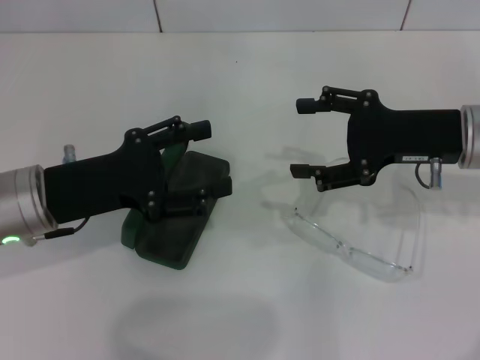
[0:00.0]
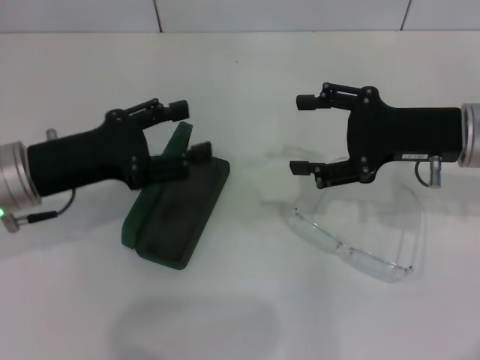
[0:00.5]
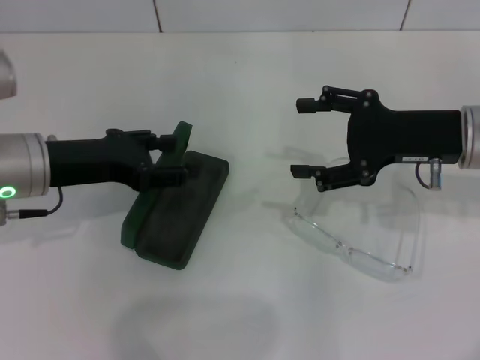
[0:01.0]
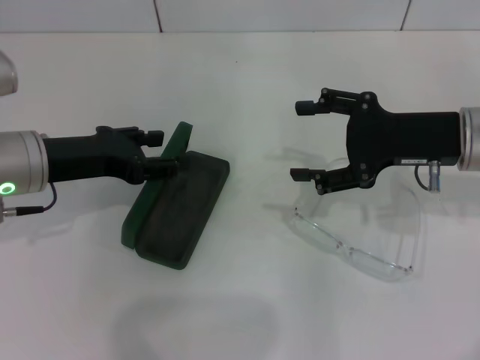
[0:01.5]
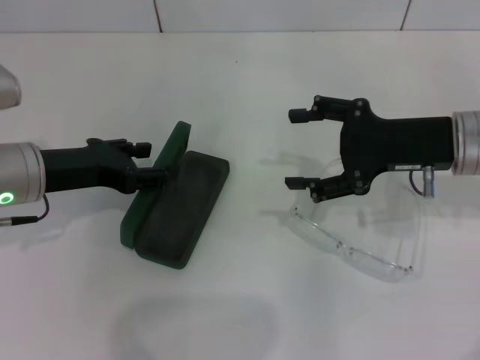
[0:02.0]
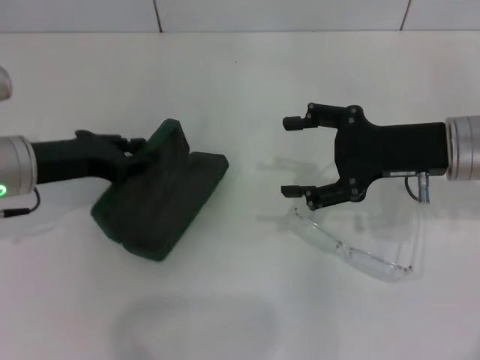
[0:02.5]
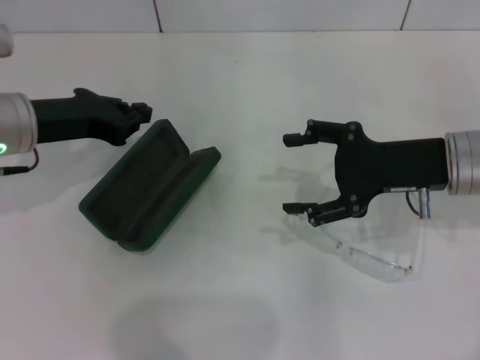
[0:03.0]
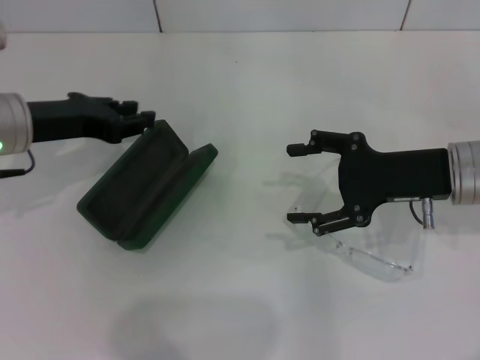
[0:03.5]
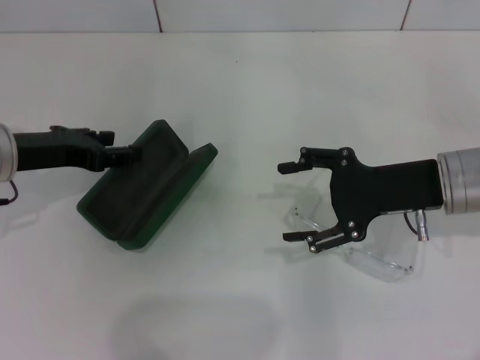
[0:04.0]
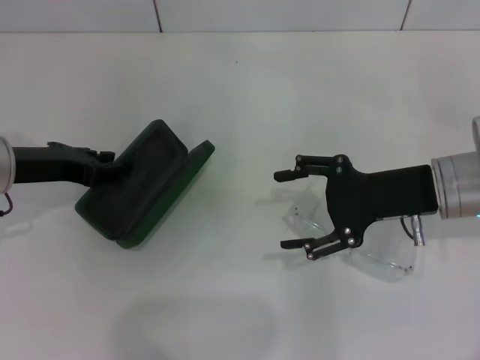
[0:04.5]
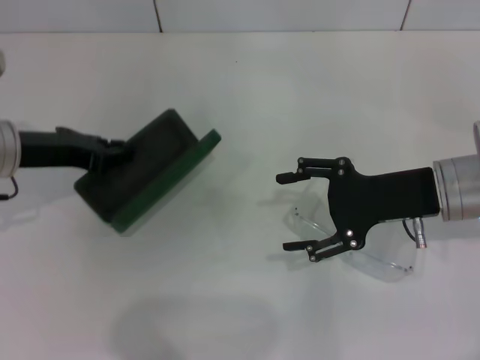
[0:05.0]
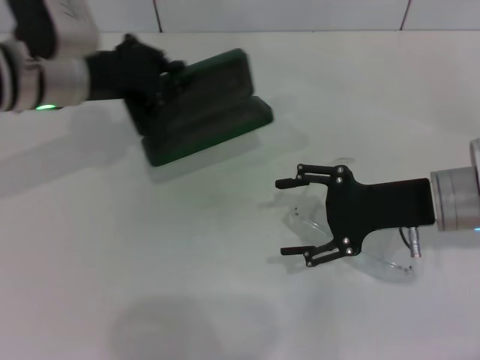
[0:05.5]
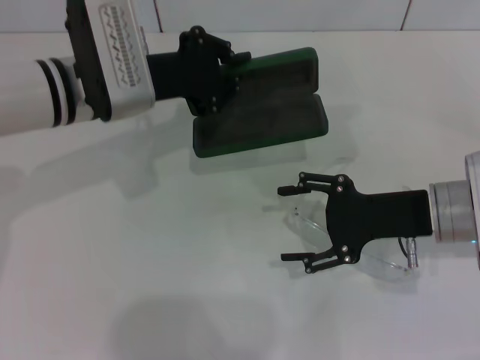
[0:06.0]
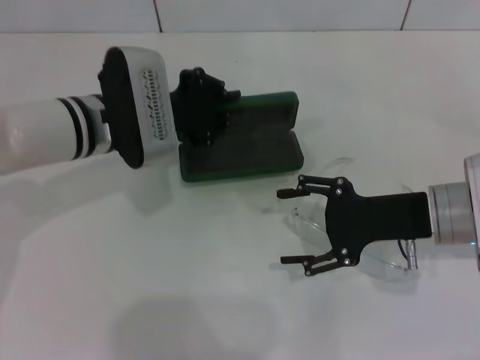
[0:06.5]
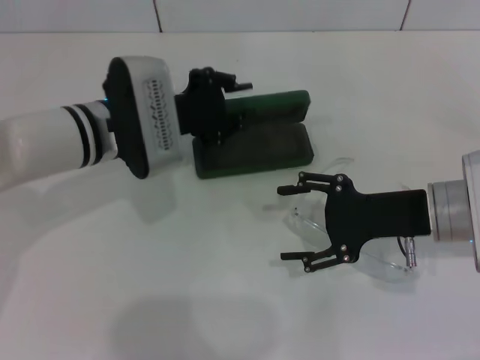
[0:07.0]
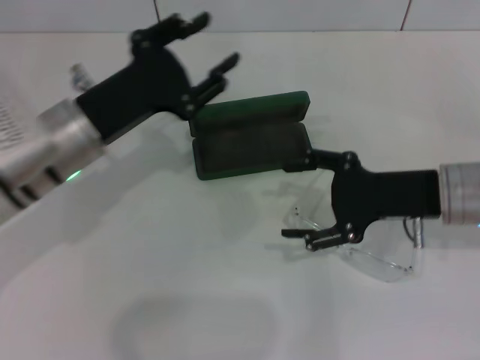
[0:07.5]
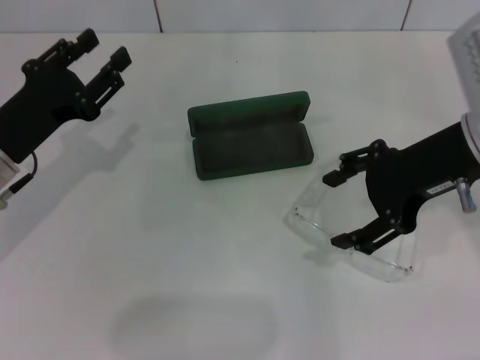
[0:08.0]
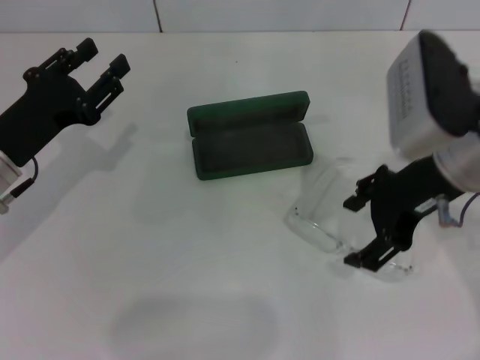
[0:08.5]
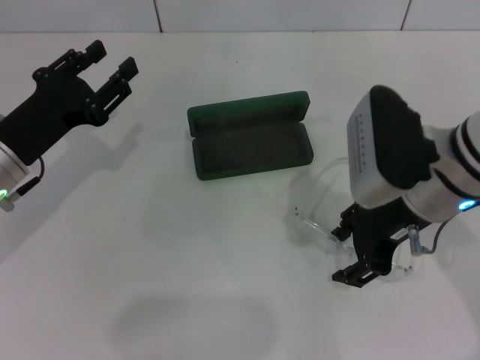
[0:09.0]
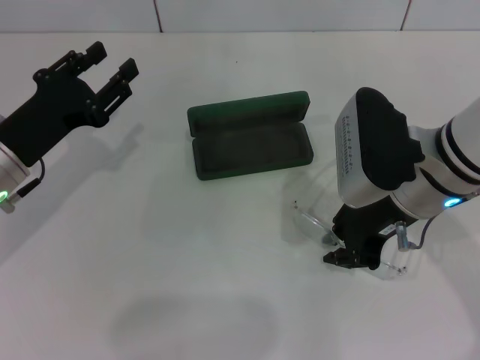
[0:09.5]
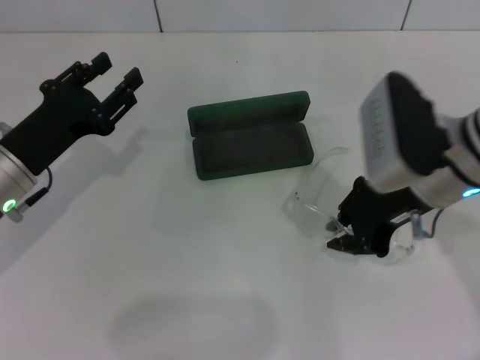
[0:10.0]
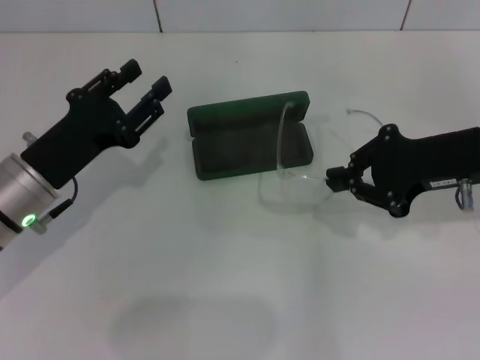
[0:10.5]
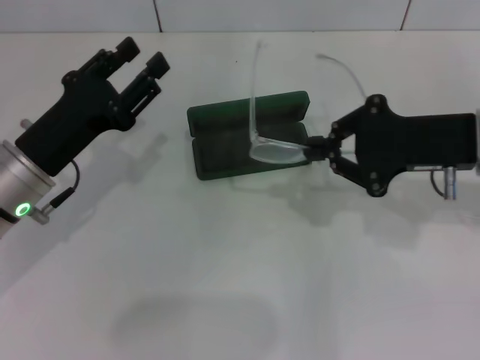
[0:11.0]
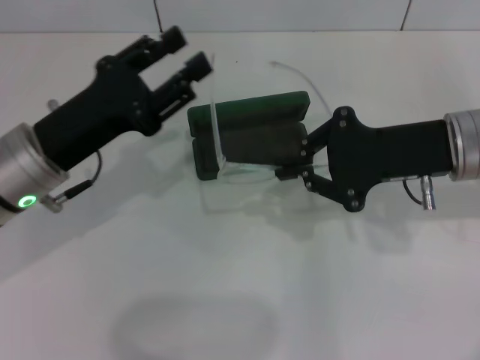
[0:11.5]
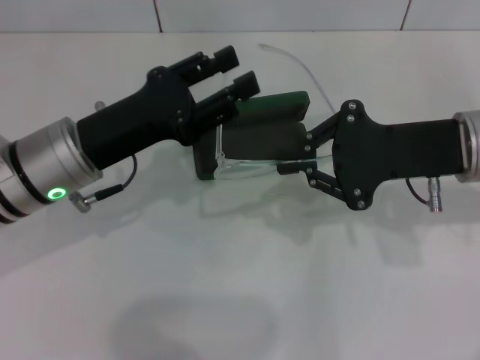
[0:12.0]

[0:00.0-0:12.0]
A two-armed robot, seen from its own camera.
Step, 0.0 to 4.5 s: Grab the glasses case with your left hand.
Step, 5.0 to 6.5 s: Place the glasses case in the center of the table with your left hand.
Step, 7.5 to 9.5 s: Grab the eyeglass frame with your right hand.
2.0 to 4.0 s: The left gripper closes, then opens again.
4.0 to 6.0 s: The left gripper is displaced to the right by some 10 cm, and closes its fingers.
6.0 to 8.0 s: The right gripper is displaced upward by roughly 10 cm; the left gripper shifts roughly 15 cm to the left and backward, and opens its fingers.
8.0 to 10.0 s: The right gripper travels downward by approximately 5 cm, and closes.
10.0 to 12.0 s: The left gripper is displaced to the right by approximately 5 cm.

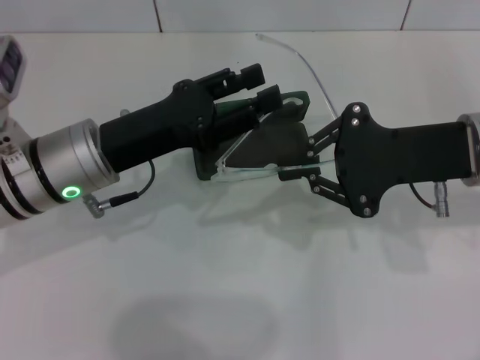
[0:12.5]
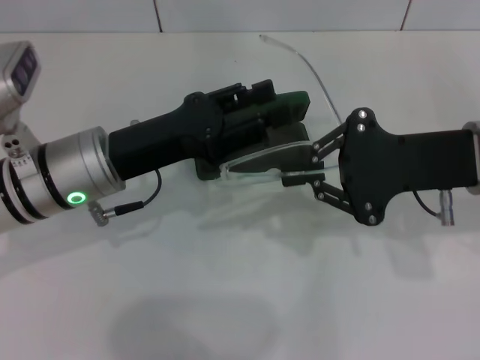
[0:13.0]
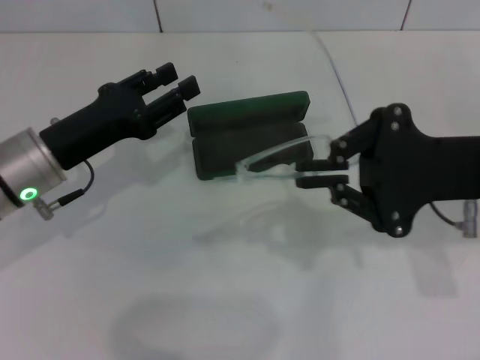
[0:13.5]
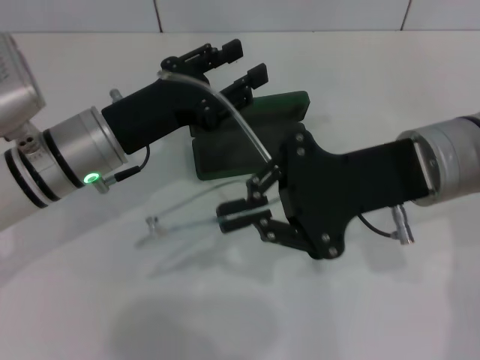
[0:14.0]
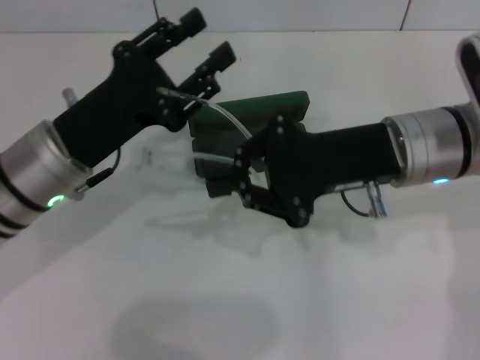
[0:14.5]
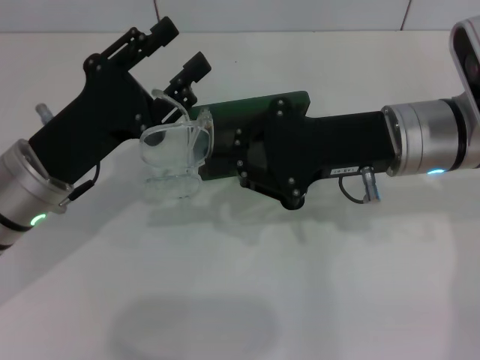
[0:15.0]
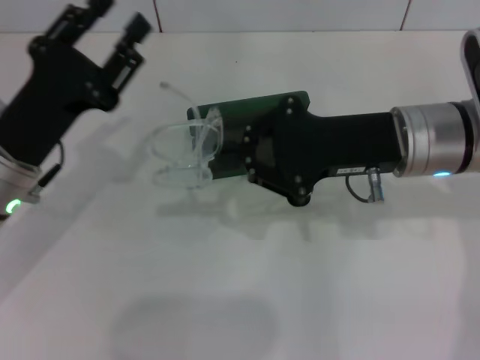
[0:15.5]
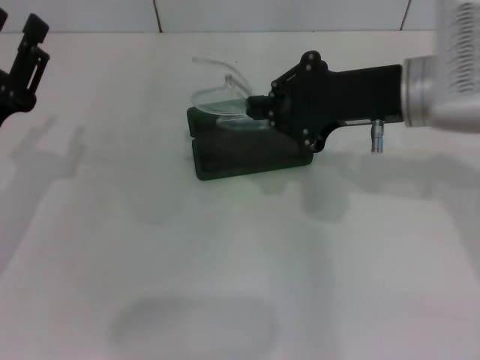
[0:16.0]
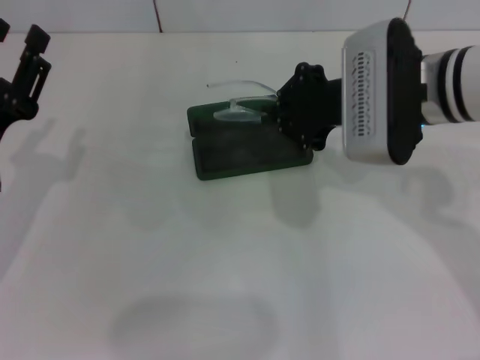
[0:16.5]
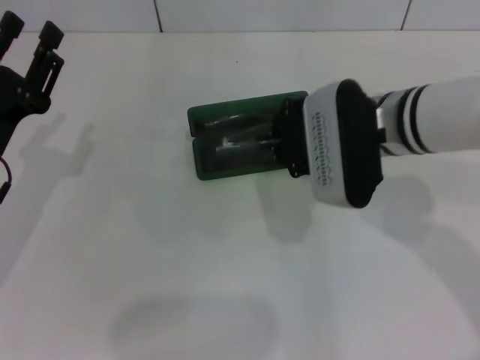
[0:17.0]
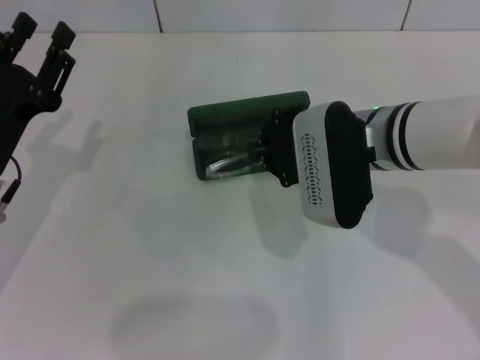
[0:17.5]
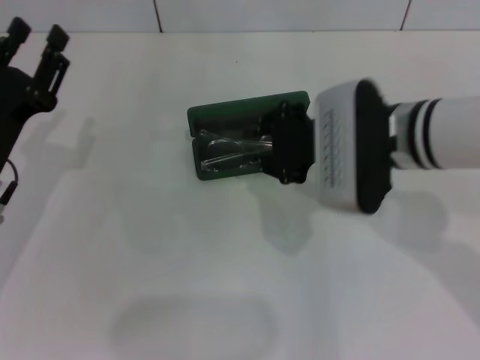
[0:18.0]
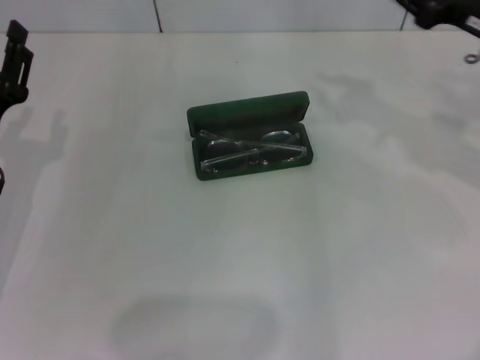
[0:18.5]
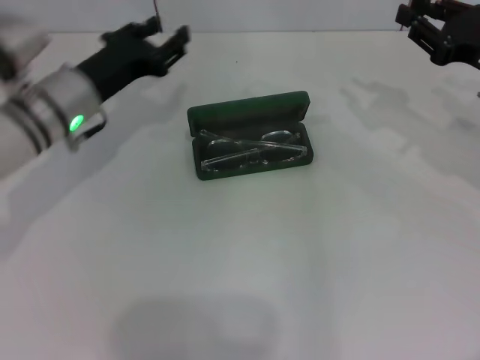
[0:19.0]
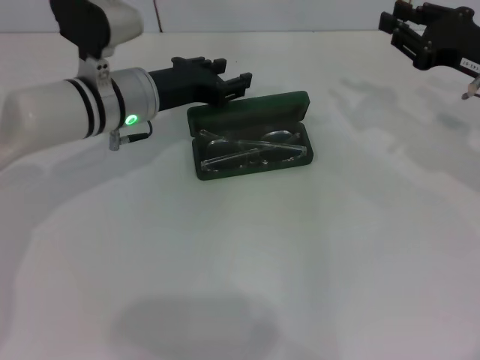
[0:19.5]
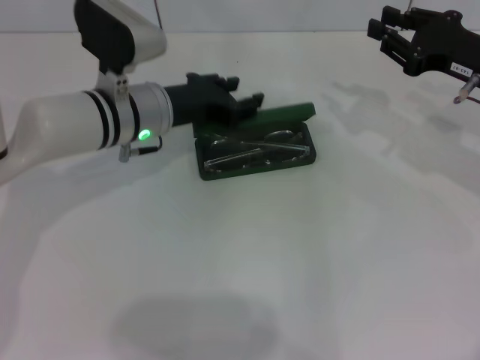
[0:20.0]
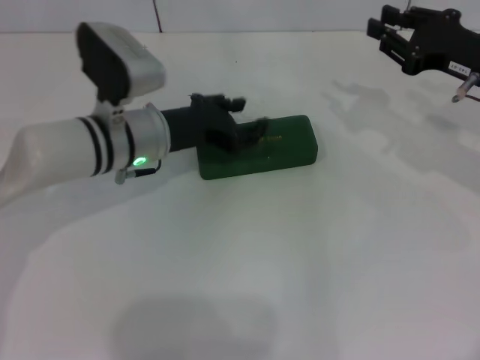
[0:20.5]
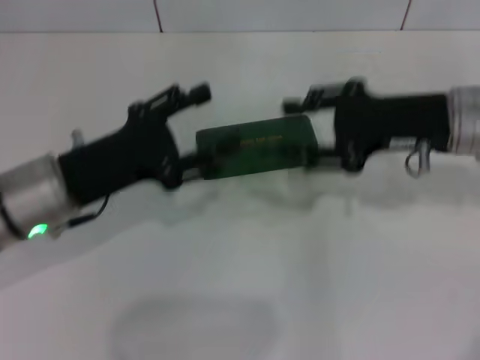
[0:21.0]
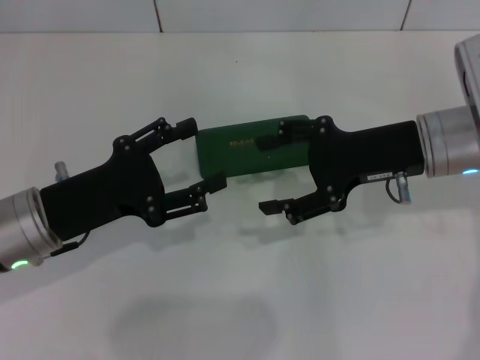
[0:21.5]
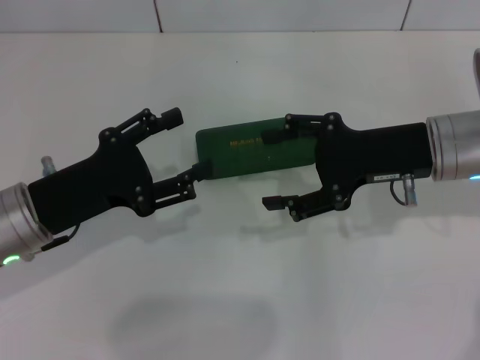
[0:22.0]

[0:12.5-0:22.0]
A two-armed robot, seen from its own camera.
Step, 12.5 to 15.0 s: Fold the frame with your left hand.
Step, 15.5 to 17.5 s: Put the glasses into the case with your right hand.
Step, 18.5 to 20.5 s: Close the glasses case with your left hand.
12.5 to 14.5 s: The right gripper shifts about 5 cm to the left.
14.5 to 16.5 s: The left gripper travels to the left by approximately 10 cm.
16.5 to 18.0 s: The grippers move only a little.
18.0 to 20.0 s: The right gripper shifts some 15 cm to the right; the left gripper goes some 20 cm to the right and forward.
20.0 to 22.0 s: The right gripper shifts some 10 cm to the left, and opens up; the left gripper is displaced backward and to the left by some 15 cm, and opens up.

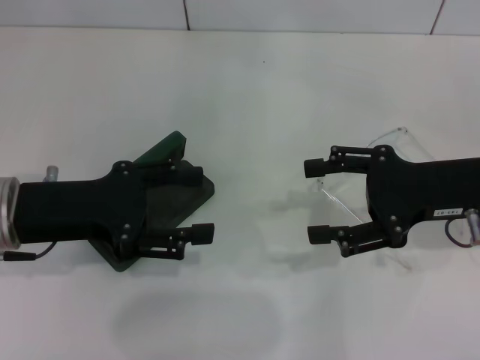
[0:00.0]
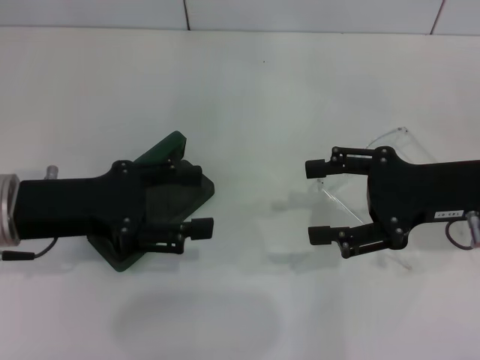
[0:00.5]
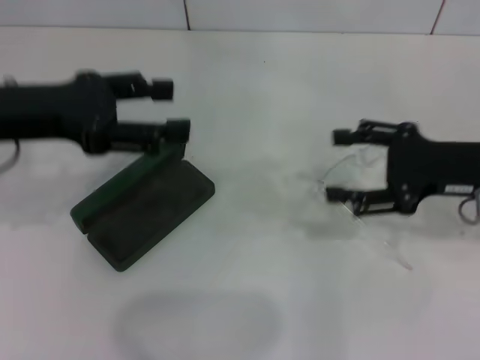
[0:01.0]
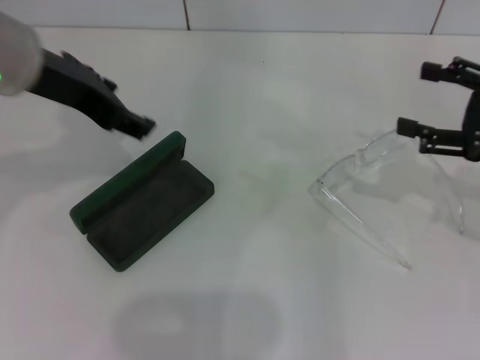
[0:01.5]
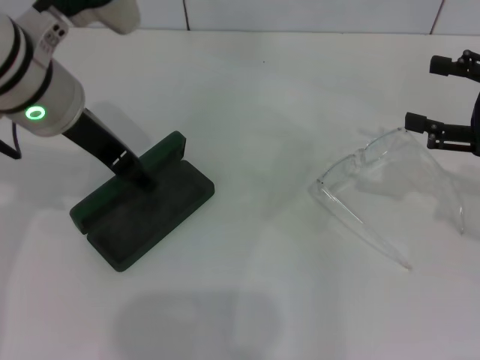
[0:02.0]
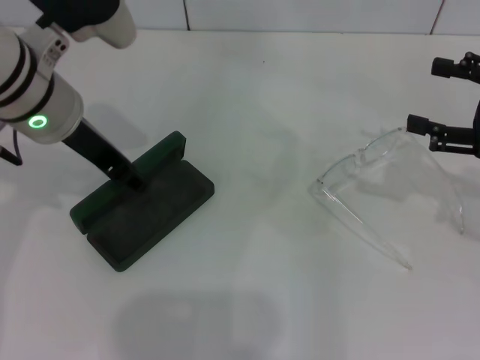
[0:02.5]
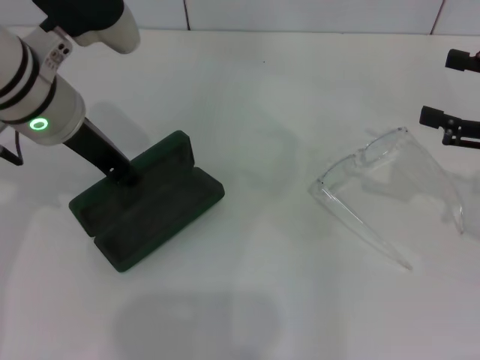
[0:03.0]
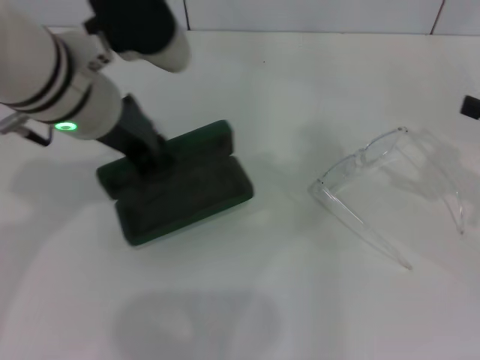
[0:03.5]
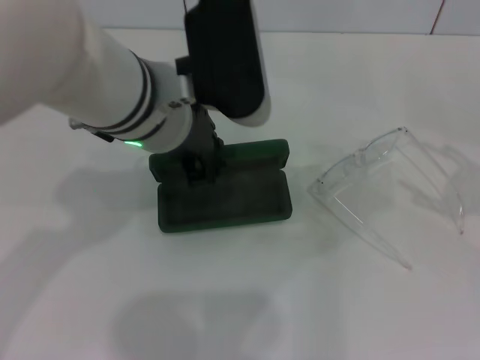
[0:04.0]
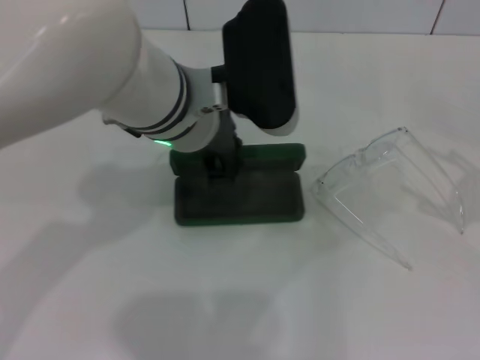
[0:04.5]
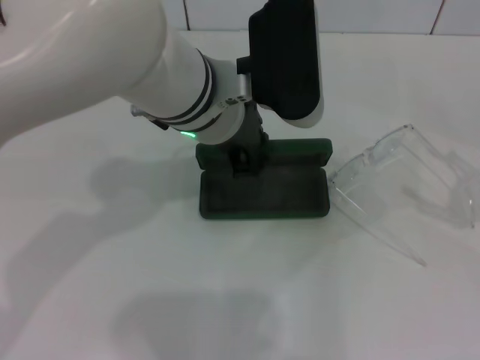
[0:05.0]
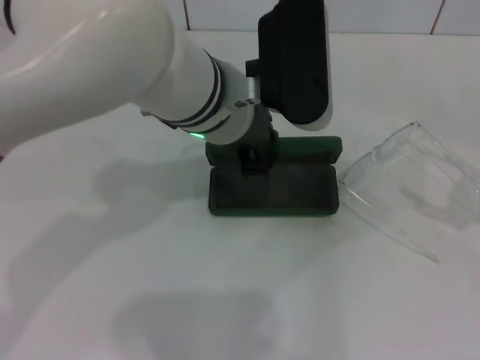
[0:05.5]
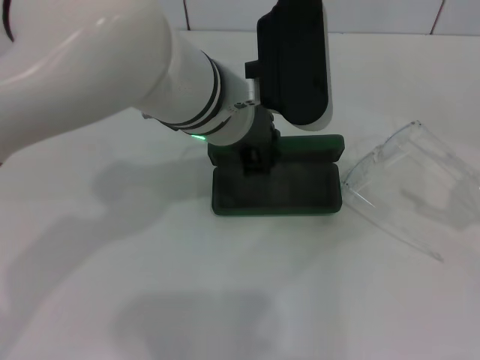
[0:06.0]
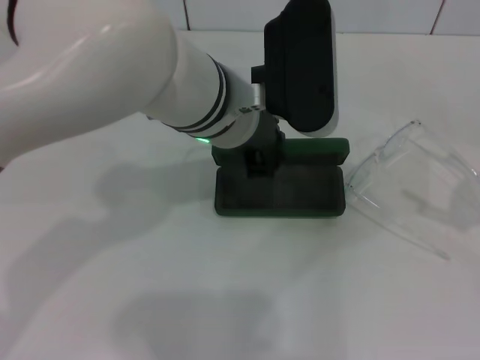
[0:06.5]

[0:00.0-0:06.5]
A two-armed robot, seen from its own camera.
Step, 0.0 to 2.5 s: Grab the glasses case with your left hand.
0.0 to 2.0 s: The right gripper travels to the right by roughly 10 cm. Meanwhile the left gripper goes roughly 15 cm upward, to the right and forward.
2.0 to 4.5 s: The right gripper travels to the right and backward by approximately 10 cm. Meanwhile the left gripper shifts roughly 10 cm to the right, and closes up.
4.5 to 6.5 s: The grippers move only a little.
